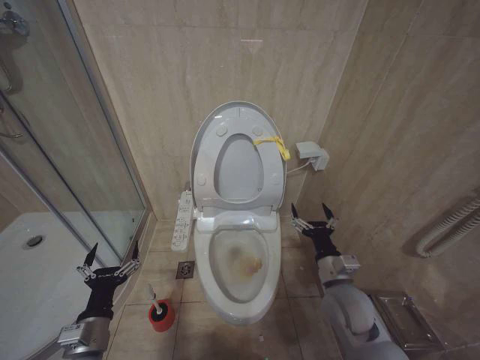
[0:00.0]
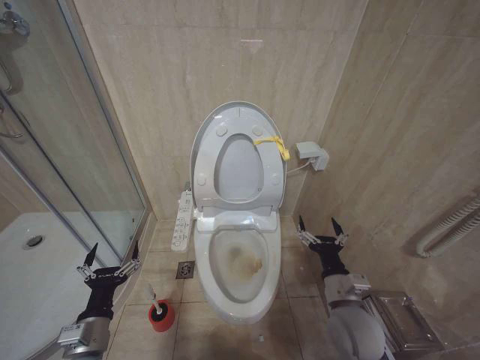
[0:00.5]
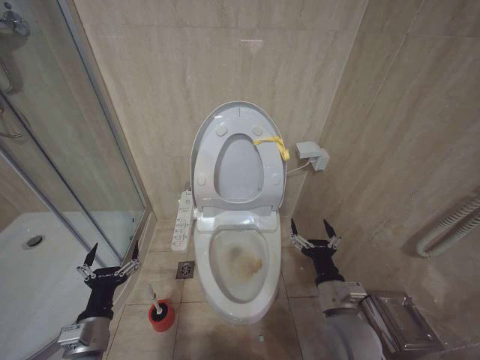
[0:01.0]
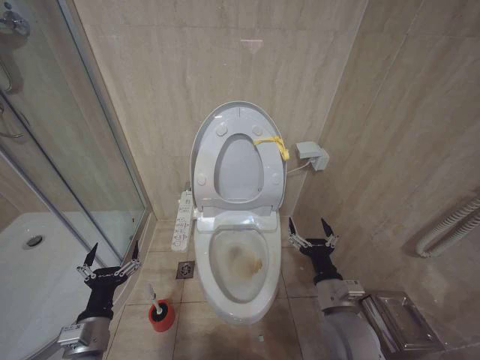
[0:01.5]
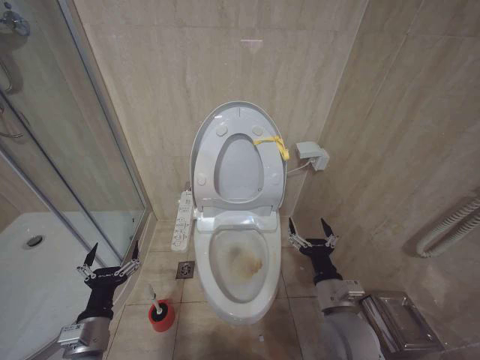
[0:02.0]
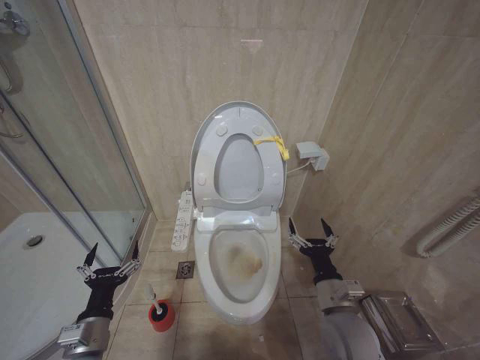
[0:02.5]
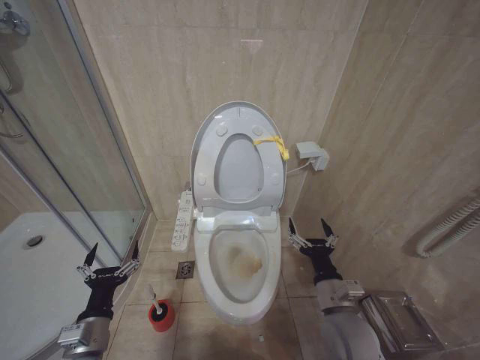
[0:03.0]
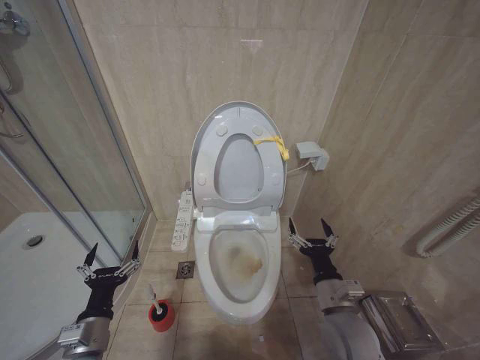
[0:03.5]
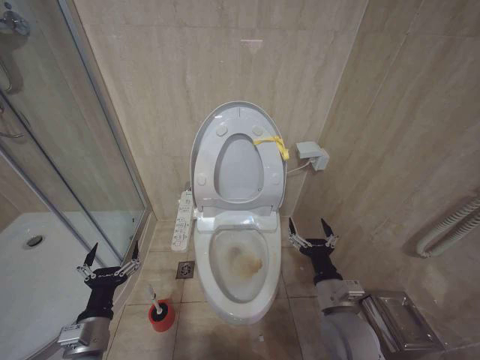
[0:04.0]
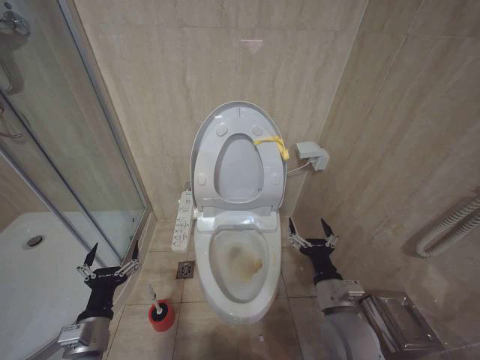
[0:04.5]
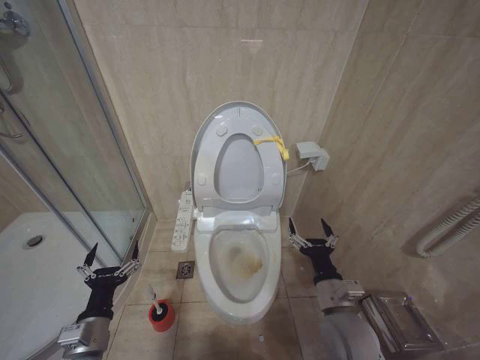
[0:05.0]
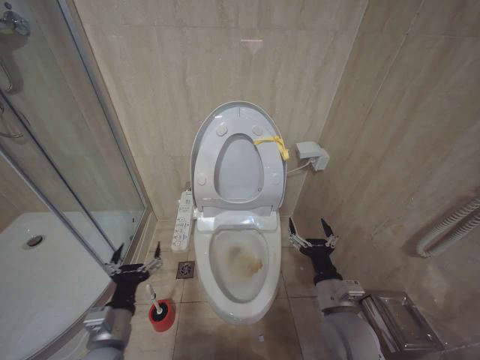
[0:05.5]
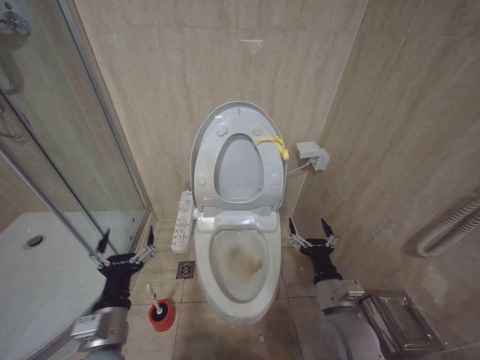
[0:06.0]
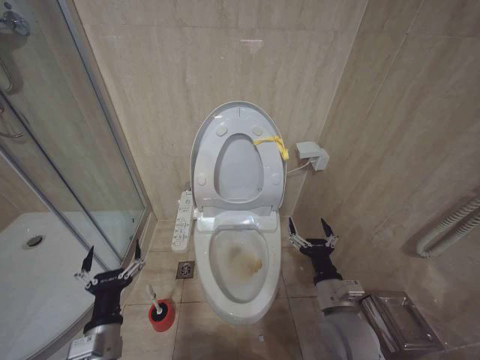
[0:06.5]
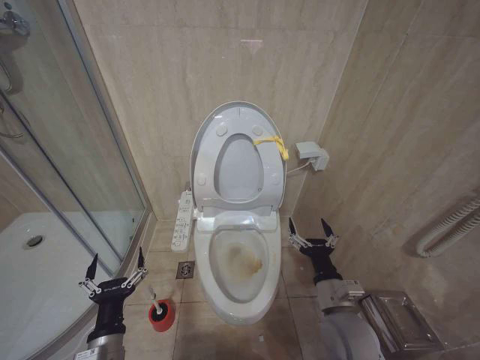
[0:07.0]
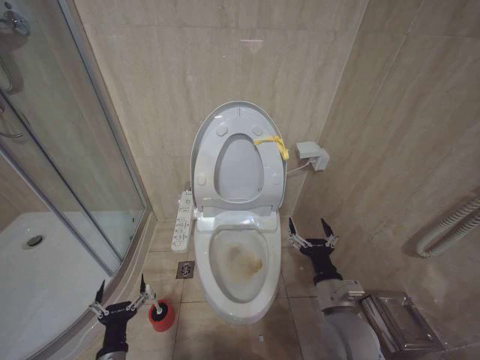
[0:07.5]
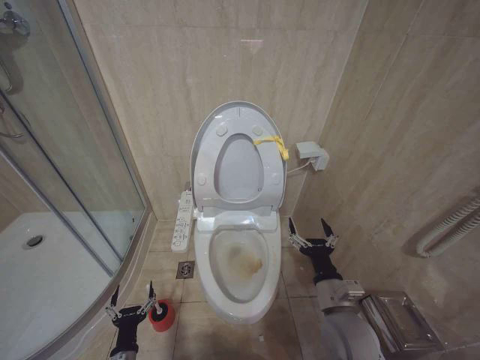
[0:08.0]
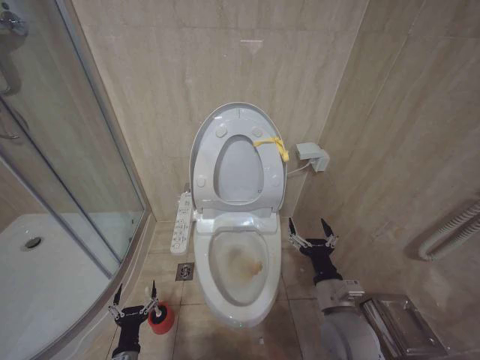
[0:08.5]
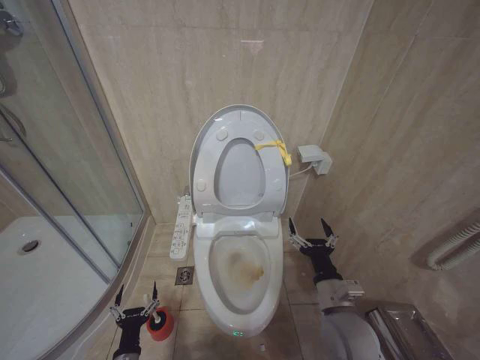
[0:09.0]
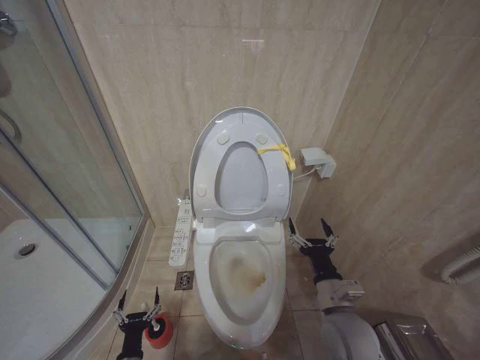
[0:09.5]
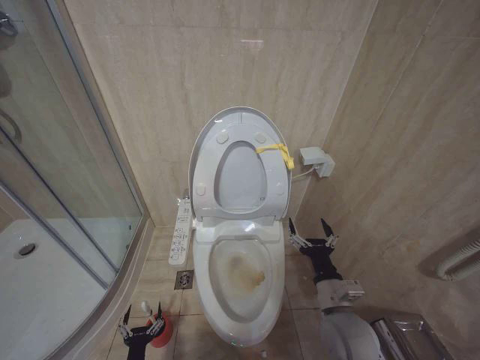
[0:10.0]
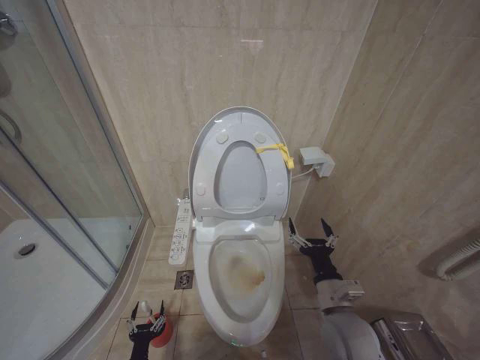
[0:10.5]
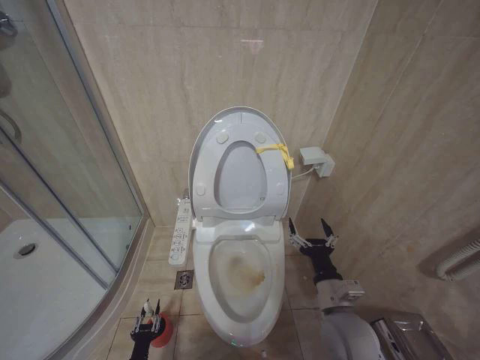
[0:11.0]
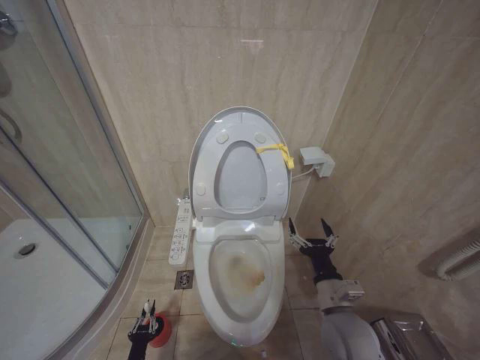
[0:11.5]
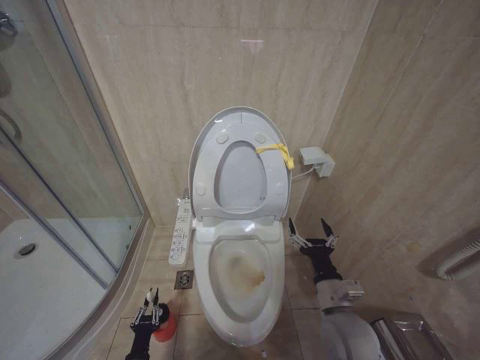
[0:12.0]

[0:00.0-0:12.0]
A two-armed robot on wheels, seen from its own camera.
Task of the whole recording: Open the toilet lid, clean the toilet bowl with a toilet brush, close the toilet lid, and flush.
0:00.0 to 0:02.0: The right gripper heads backward, covering approximately 5 cm.
0:02.0 to 0:04.0: The two grippers keep their place.
0:04.0 to 0:06.0: The left gripper heads to the right, covering roughly 5 cm.
0:06.0 to 0:08.0: The left gripper travels downward by about 20 cm.
0:08.0 to 0:10.0: The left gripper goes some 10 cm downward.
0:10.0 to 0:12.0: The left gripper closes.

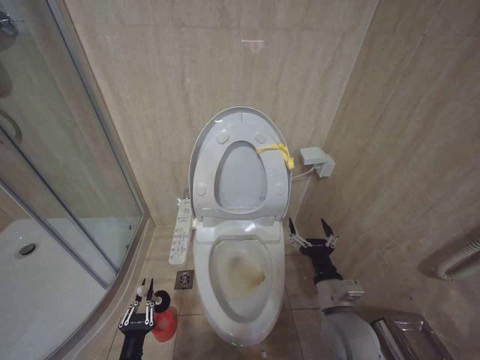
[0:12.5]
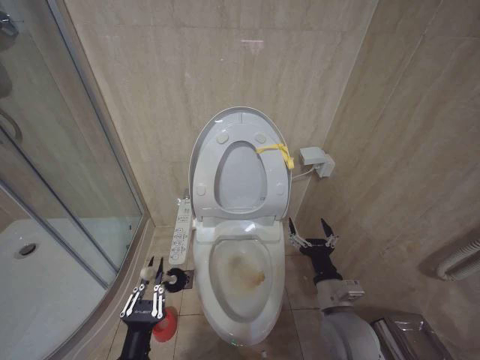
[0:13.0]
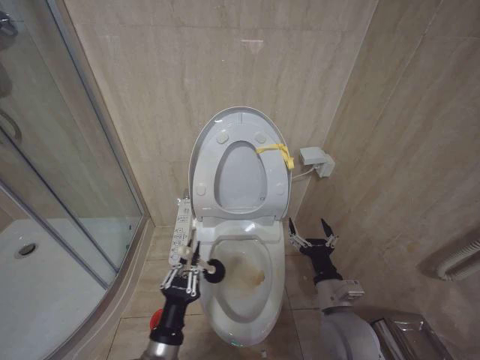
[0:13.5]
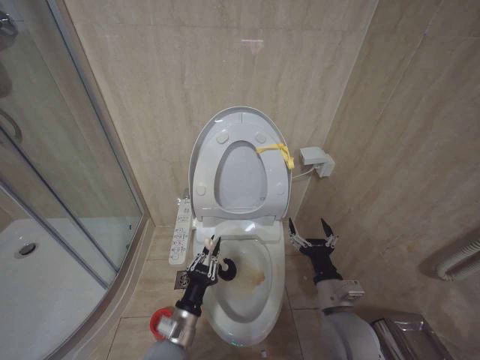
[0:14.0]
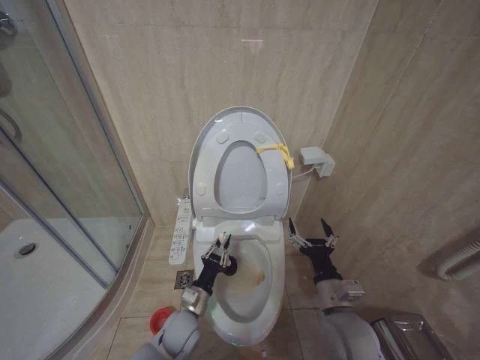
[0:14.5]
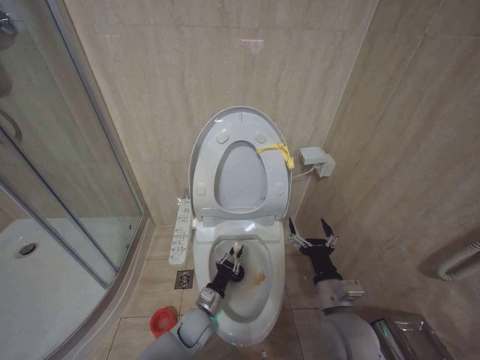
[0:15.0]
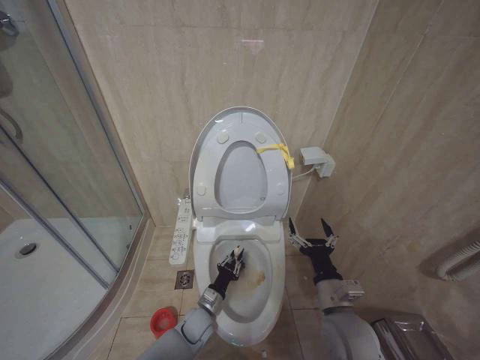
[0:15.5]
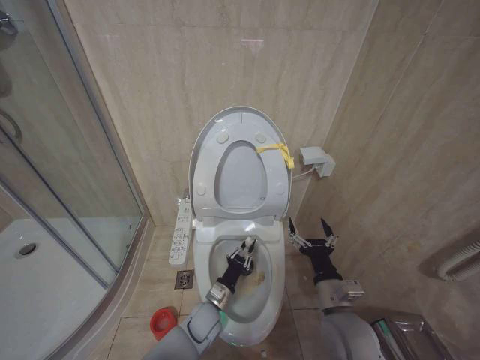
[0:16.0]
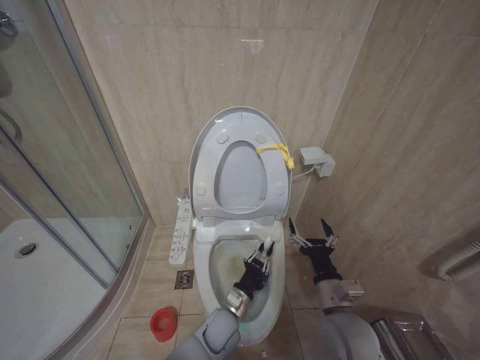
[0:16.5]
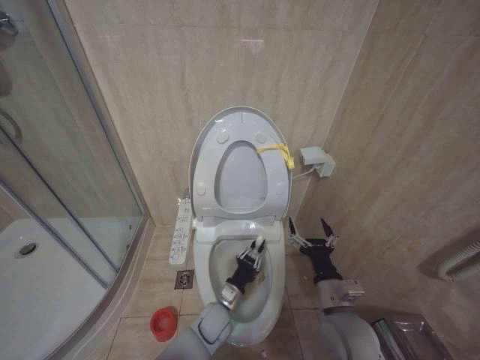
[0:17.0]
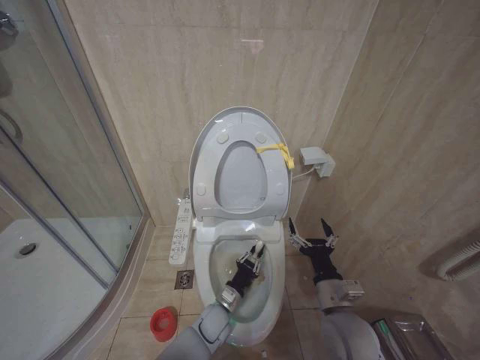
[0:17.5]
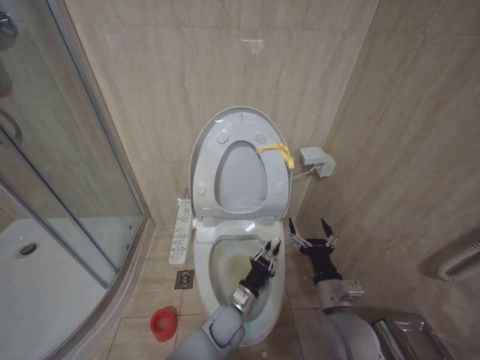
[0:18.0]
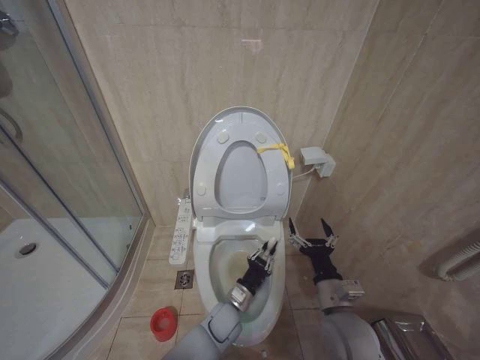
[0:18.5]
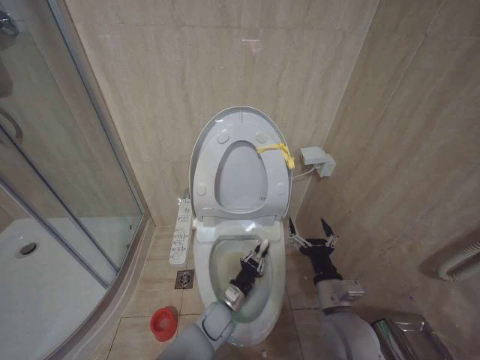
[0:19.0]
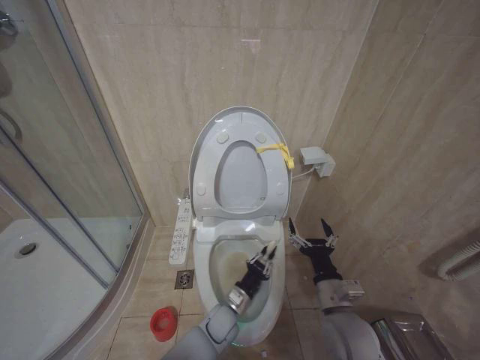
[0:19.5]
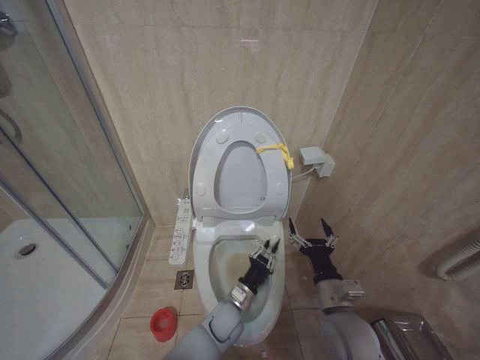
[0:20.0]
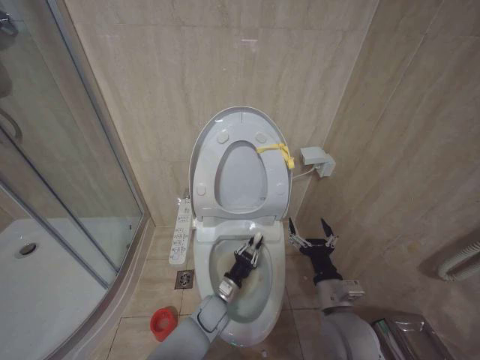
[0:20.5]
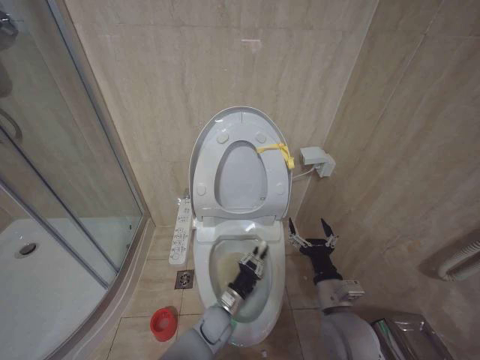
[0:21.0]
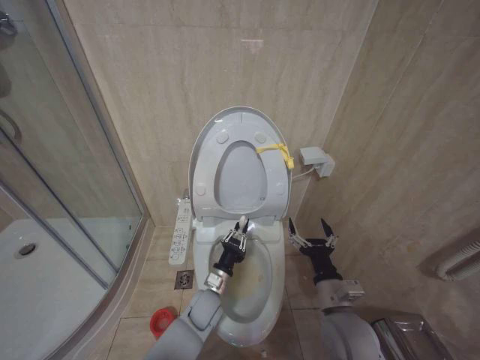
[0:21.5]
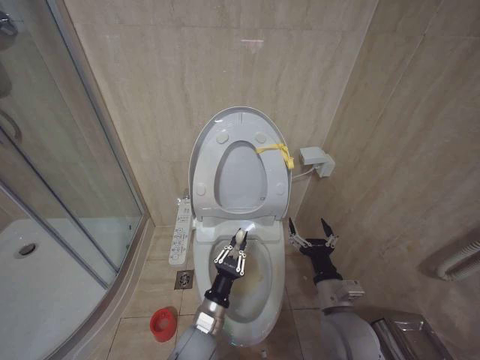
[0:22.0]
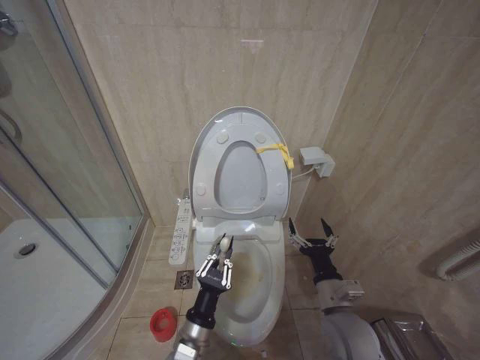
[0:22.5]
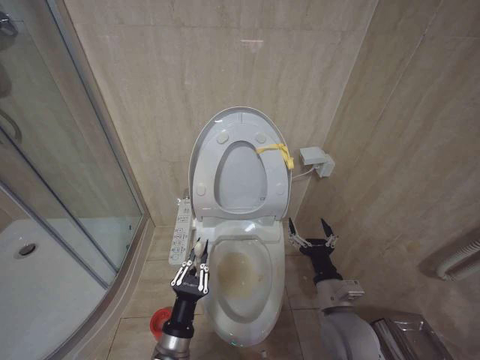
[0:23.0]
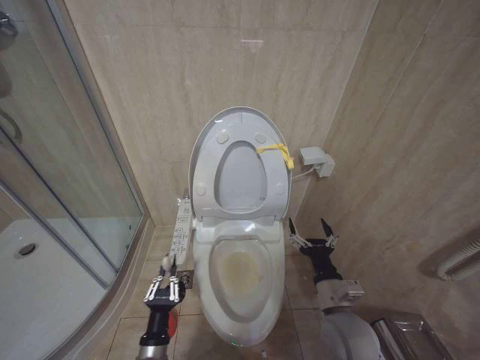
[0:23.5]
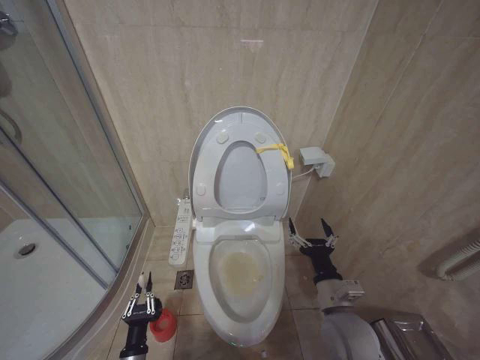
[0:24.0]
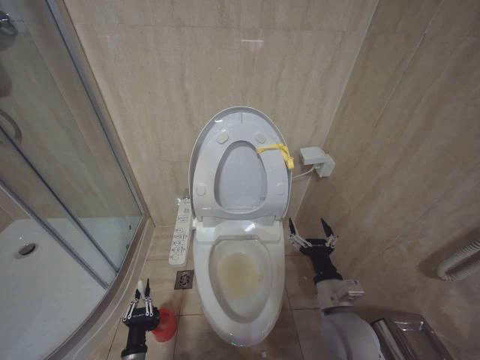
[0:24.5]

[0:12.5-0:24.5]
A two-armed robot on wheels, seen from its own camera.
Task of the whole recording: Open the toilet lid, clean the toilet bowl with a toilet brush, close the toilet lid, and flush.
0:12.5 to 0:14.5: The left gripper moves forward, to the right and upward, roughly 20 cm.
0:14.5 to 0:16.5: The left gripper heads to the right, covering some 10 cm.
0:16.5 to 0:18.5: The left gripper changes place by approximately 5 cm.
0:18.5 to 0:20.5: The grippers move only a little.
0:20.5 to 0:22.5: The left gripper goes some 20 cm backward and upward.
0:22.5 to 0:24.5: The left gripper shifts approximately 25 cm downward and to the left.

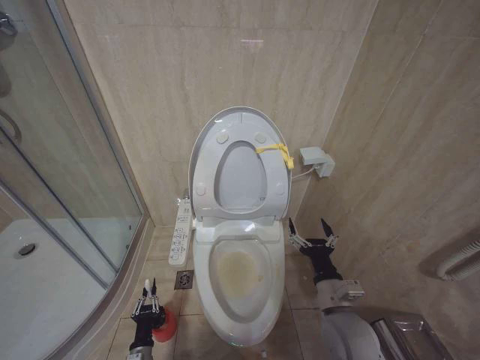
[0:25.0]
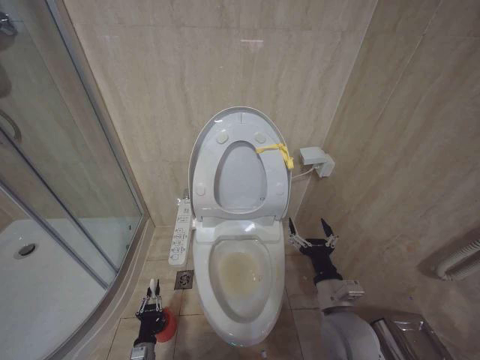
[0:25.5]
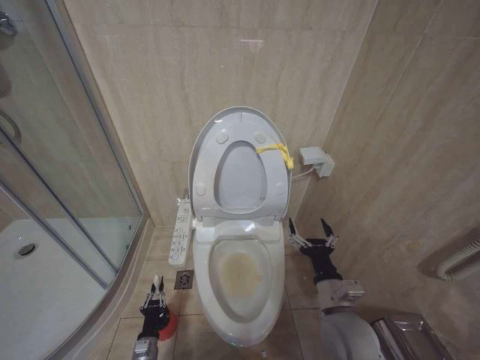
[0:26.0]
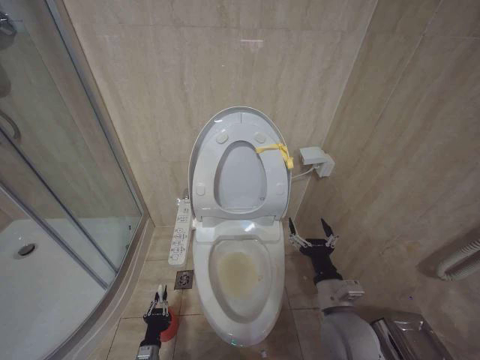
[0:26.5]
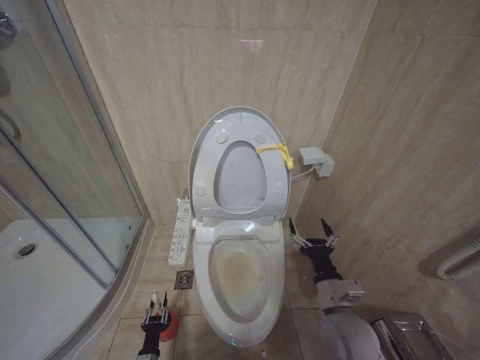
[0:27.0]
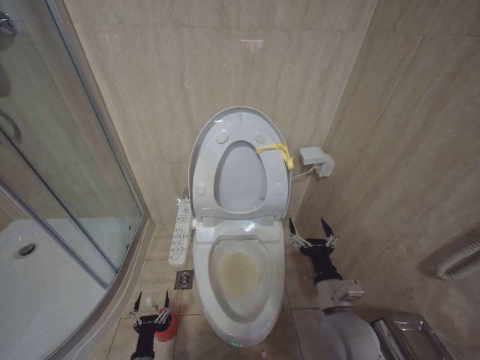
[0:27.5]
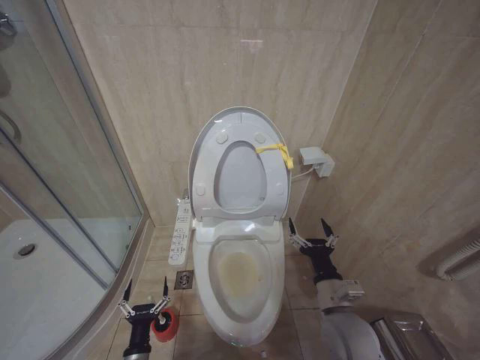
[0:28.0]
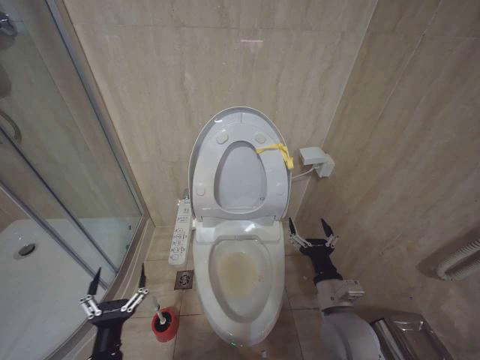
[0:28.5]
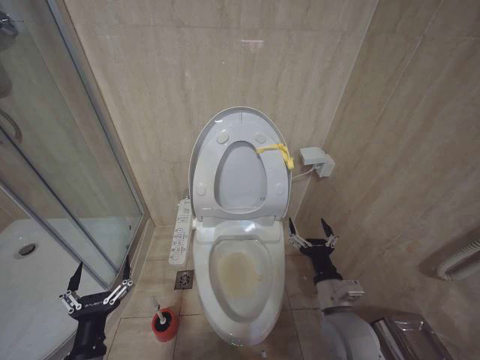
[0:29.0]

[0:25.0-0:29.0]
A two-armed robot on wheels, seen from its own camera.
Task of the whole recording: Open the toilet lid, clean the toilet bowl with a toilet brush, close the toilet lid, and flush.
0:25.0 to 0:27.0: The left gripper heads downward, covering some 5 cm.
0:27.0 to 0:29.0: The left gripper moves upward, approximately 30 cm, and opens up.
